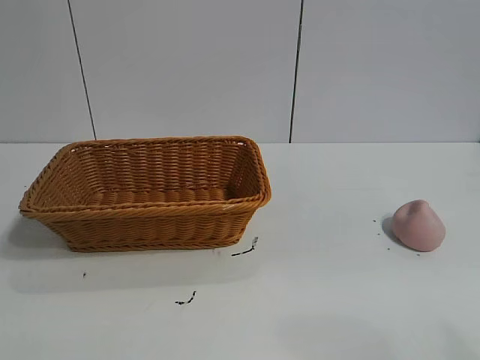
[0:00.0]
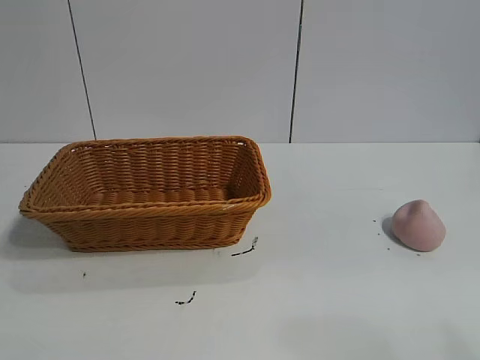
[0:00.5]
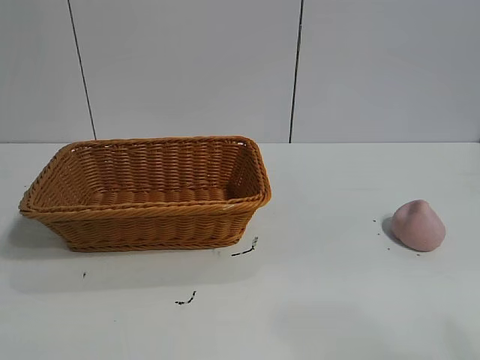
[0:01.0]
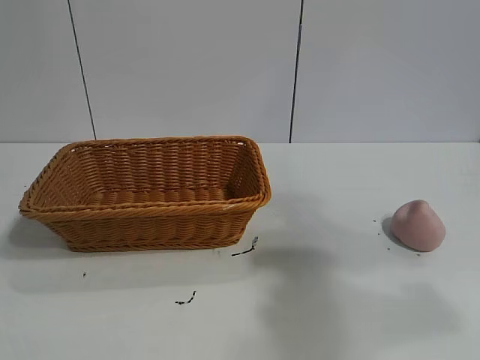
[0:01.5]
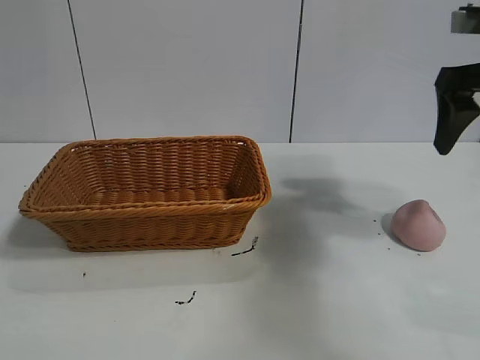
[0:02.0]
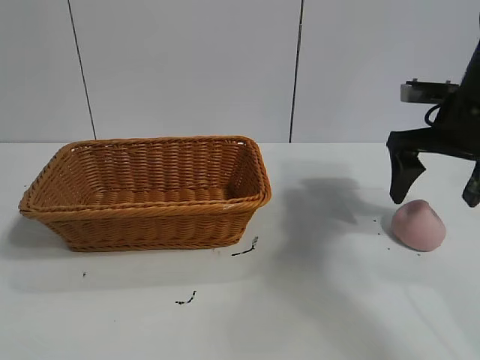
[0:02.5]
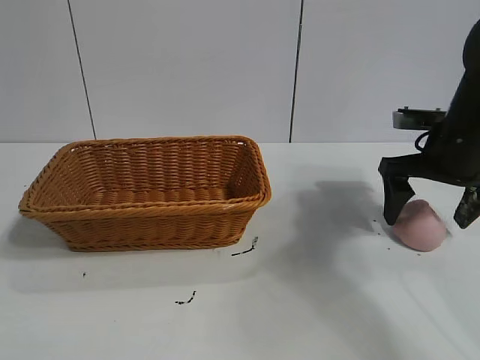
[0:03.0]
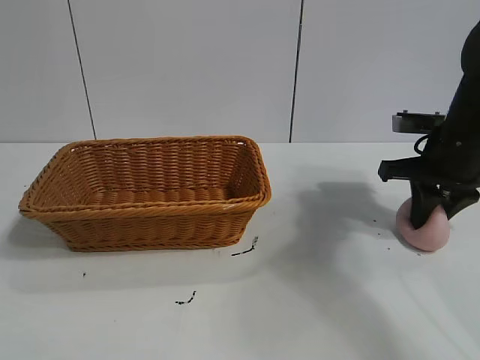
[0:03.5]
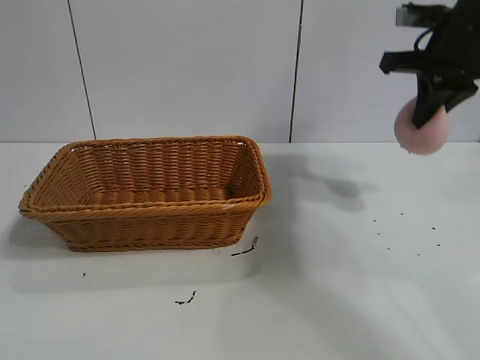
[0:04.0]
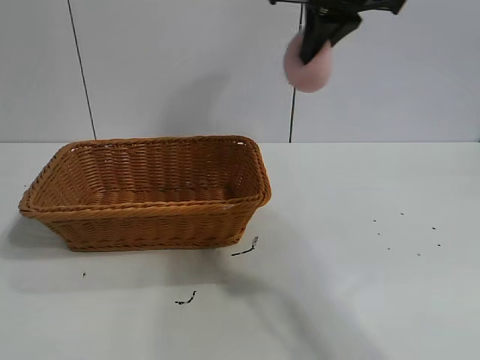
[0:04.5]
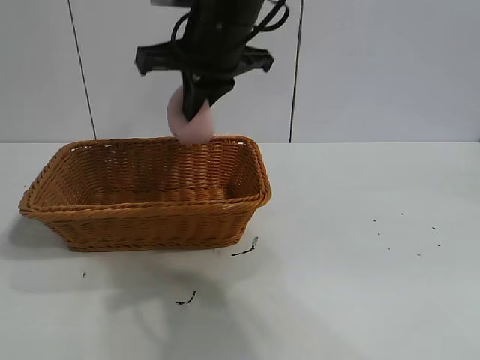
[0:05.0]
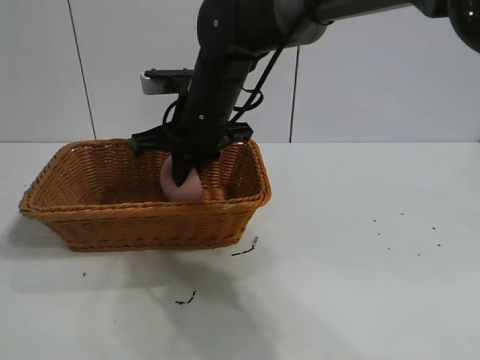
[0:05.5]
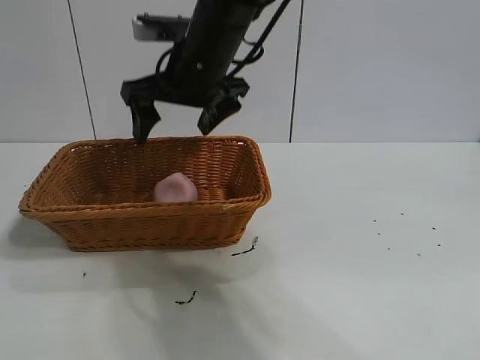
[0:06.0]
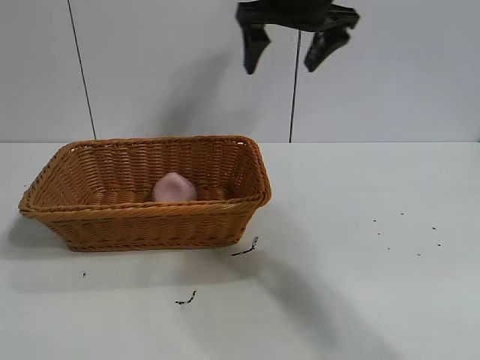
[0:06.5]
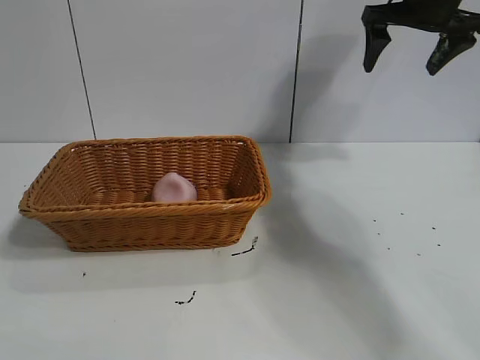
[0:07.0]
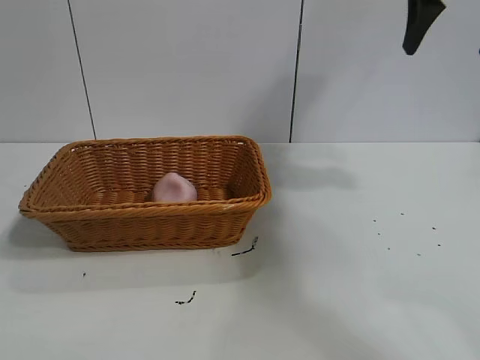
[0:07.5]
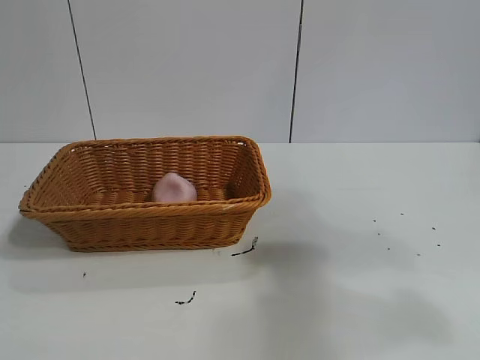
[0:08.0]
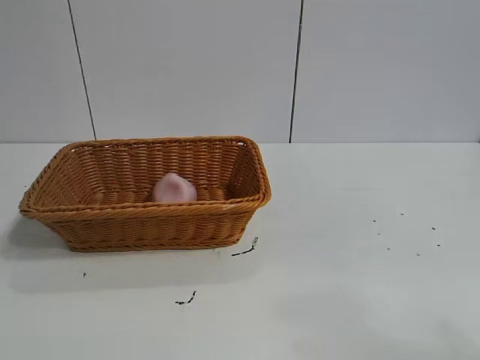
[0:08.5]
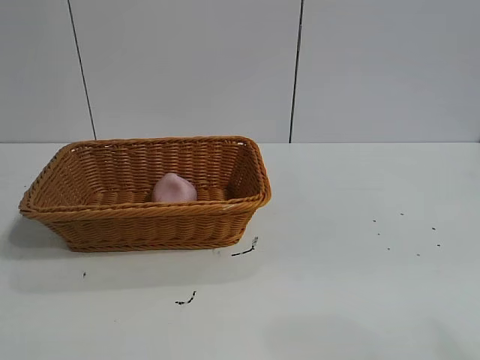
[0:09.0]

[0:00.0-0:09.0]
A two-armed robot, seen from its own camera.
Task of the whole recording: pick up the peach and put it into the basket.
Step, 0:01.0 to 0:03.5: Grasp the peach with right gripper.
Step, 0:04.0 to 0:06.0: Place the peach in the basket with right gripper.
